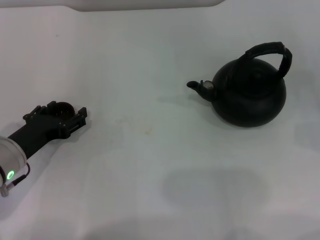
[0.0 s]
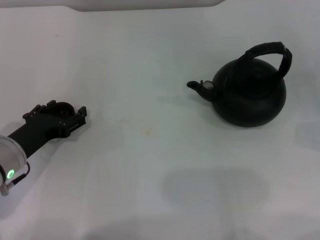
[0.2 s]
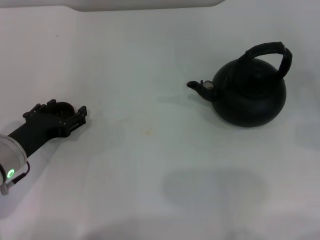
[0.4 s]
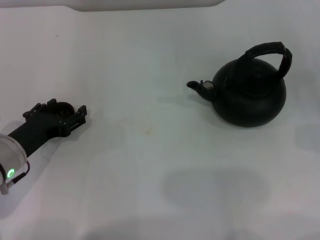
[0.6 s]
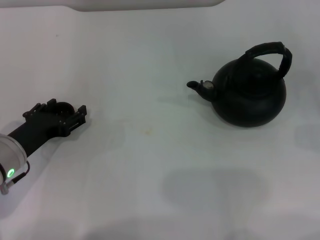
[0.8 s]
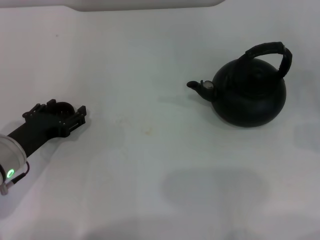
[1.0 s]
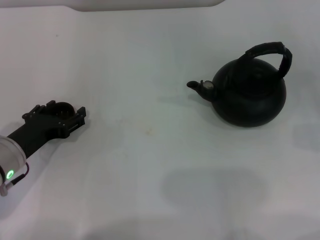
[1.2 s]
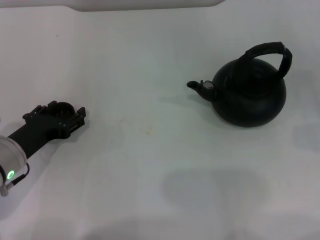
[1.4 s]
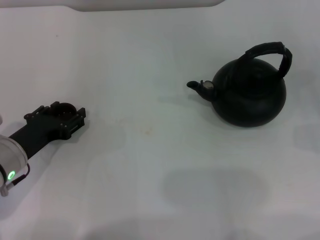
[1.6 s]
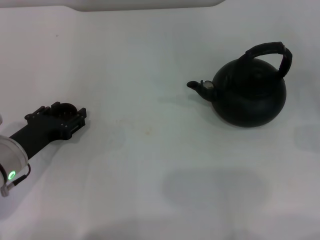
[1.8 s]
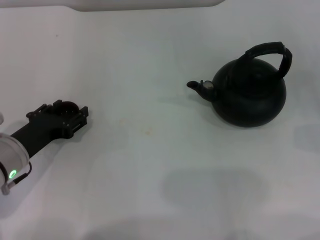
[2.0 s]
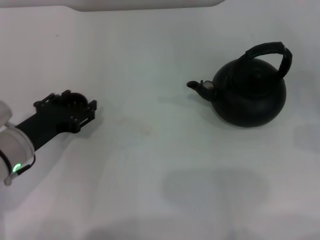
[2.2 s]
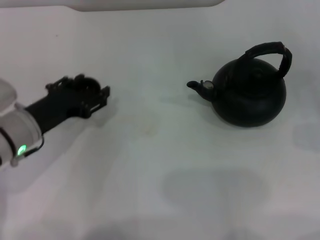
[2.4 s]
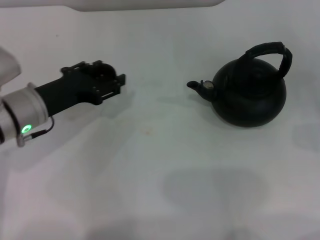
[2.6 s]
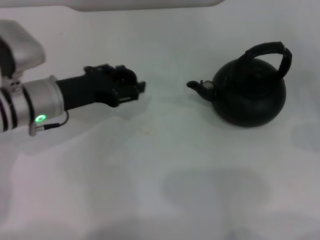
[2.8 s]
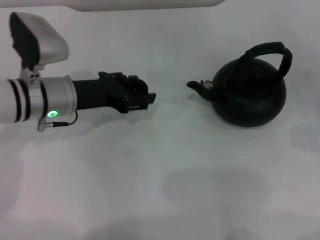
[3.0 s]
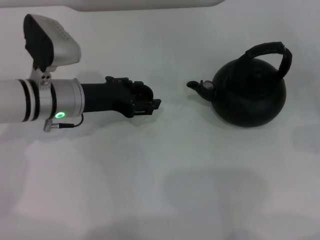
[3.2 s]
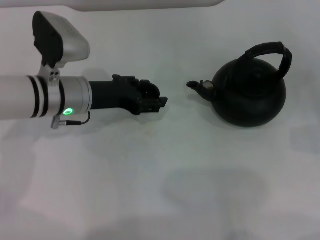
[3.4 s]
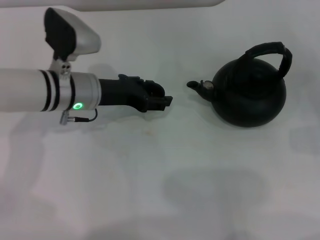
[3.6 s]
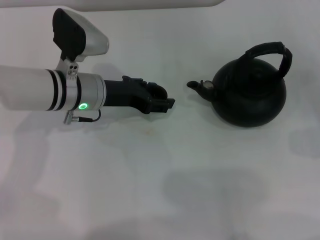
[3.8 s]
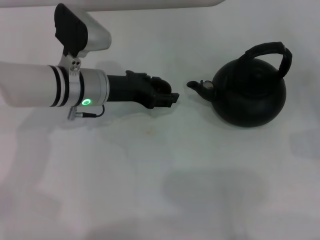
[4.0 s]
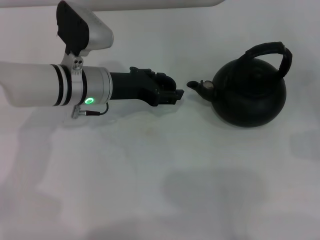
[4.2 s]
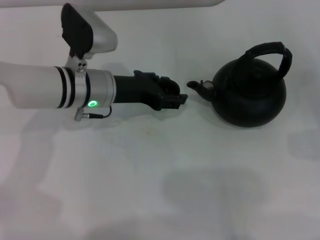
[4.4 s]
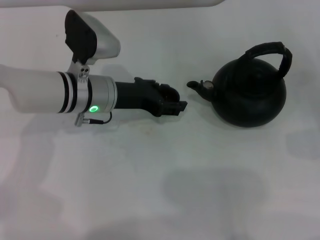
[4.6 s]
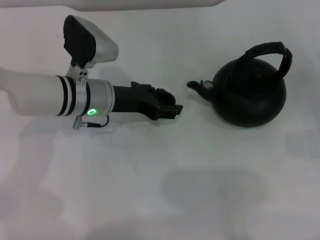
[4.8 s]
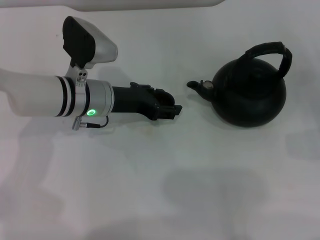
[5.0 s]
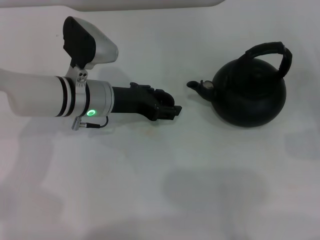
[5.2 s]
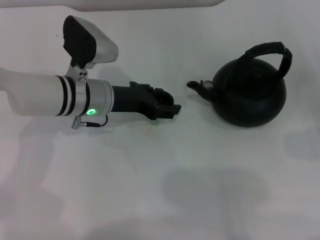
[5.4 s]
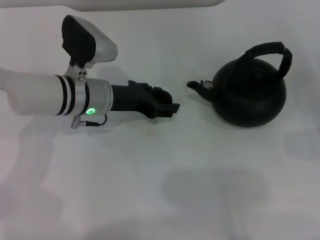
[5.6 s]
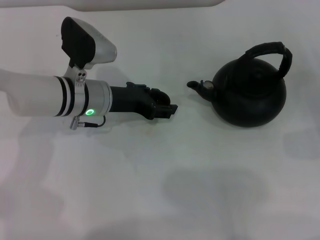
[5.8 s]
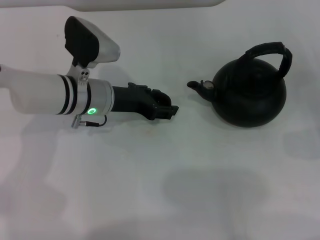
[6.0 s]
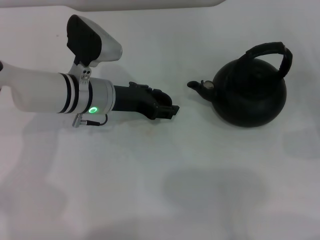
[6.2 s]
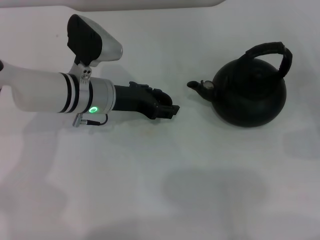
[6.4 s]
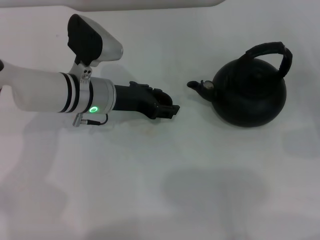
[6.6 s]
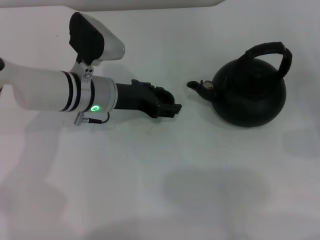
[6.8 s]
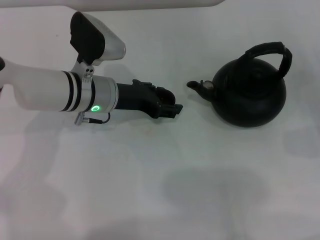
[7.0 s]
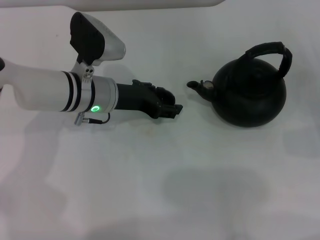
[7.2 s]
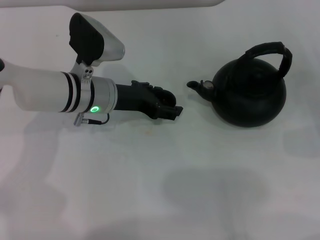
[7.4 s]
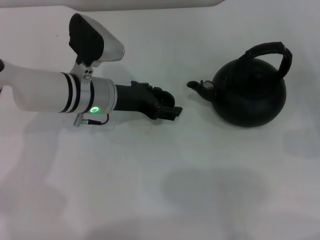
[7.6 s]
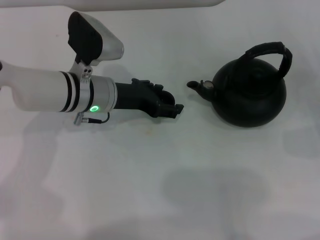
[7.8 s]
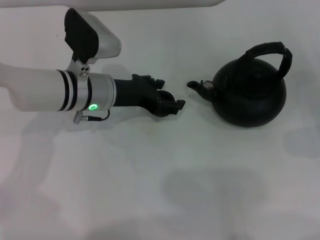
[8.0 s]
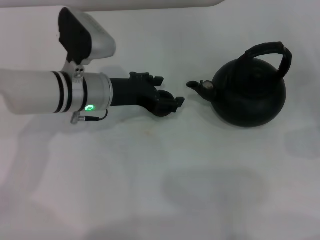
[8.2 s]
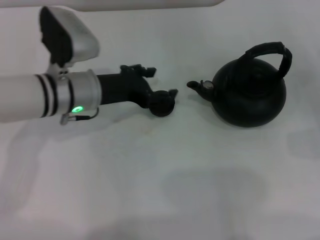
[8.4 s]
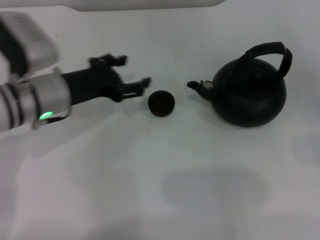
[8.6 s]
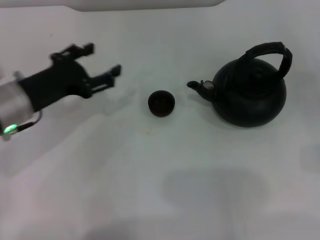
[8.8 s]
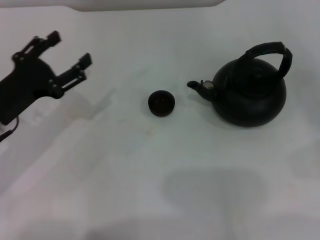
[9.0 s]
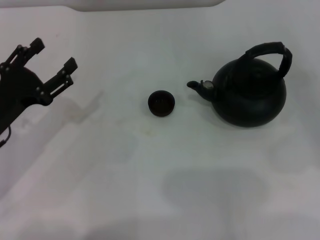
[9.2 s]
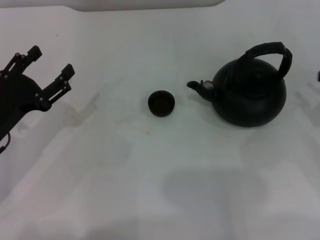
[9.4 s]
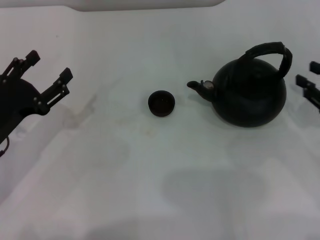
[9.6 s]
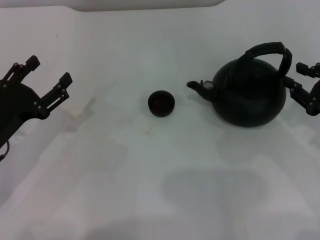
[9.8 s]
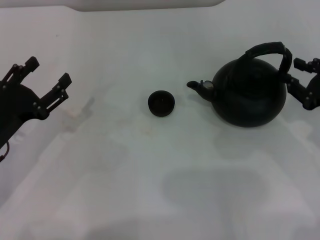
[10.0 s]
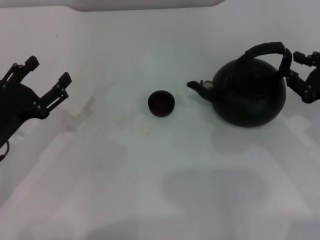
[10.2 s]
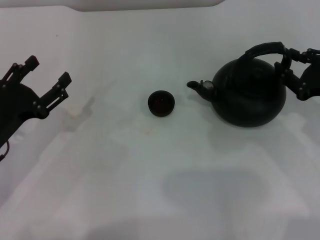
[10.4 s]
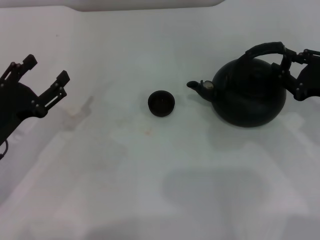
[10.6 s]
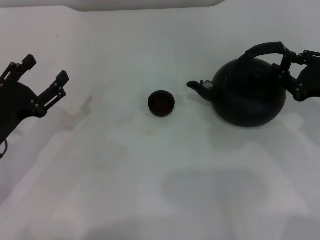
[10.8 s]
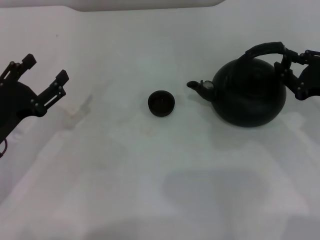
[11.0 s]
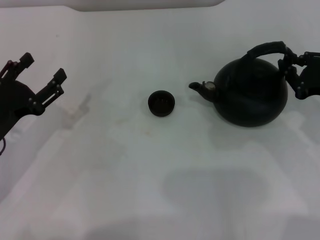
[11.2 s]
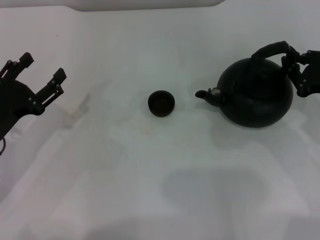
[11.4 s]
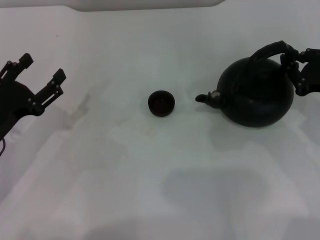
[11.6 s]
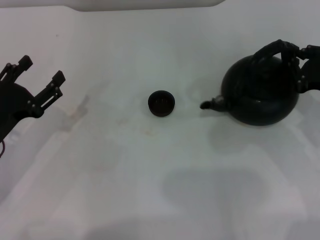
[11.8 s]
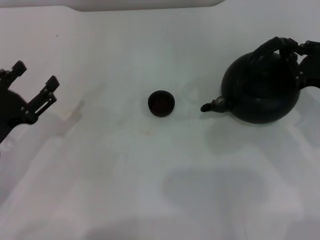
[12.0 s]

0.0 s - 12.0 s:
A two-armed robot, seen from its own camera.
Task of the whole recording: Grasp the handle of the teapot with one hand and pour tea into the teacup.
Step, 0.0 s - 2.4 s: Pick up the teacup with the left gripper.
Step, 2.6 s - 8.4 s: Place the teacup in the center of view with the left gripper.
1.6 s - 3.0 s: The left gripper goes roughly 15 cm forward, to the right and upward, and closes its fingers.
3.0 s - 4.4 s: The left gripper heads to the right, covering approximately 5 cm.
4.4 s - 6.0 s: The grippers stay close to where they were, moving slightly.
6.0 s - 7.6 s: The left gripper opens its fingers.
7.6 s - 9.0 s: The left gripper is displaced to the left and backward by roughly 15 cm. Meanwhile the right gripper moves roughly 5 cm.
9.0 s - 10.4 s: The right gripper goes roughly 15 cm to the left and forward.
10.4 s - 12.0 s: The right gripper closes its fingers.

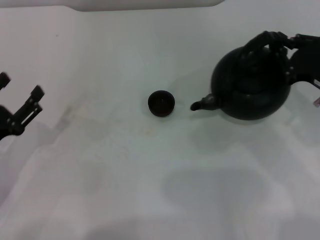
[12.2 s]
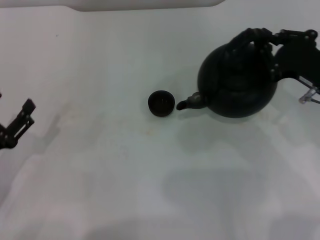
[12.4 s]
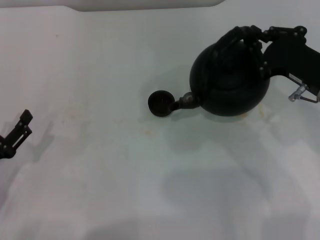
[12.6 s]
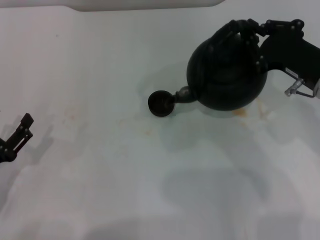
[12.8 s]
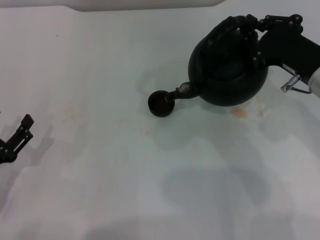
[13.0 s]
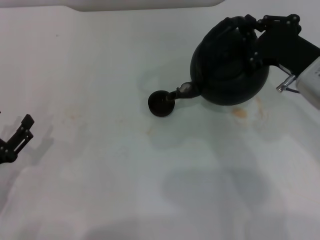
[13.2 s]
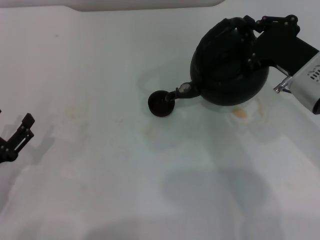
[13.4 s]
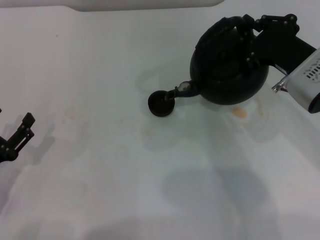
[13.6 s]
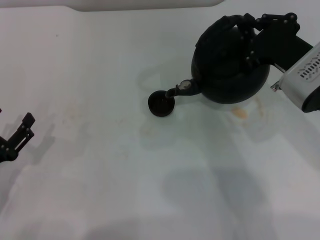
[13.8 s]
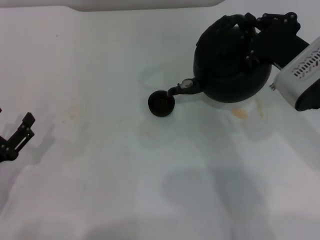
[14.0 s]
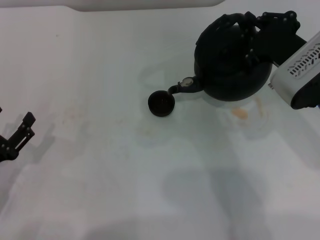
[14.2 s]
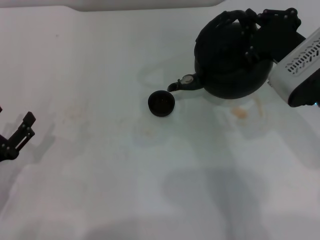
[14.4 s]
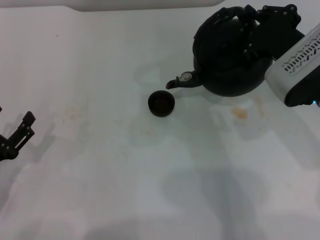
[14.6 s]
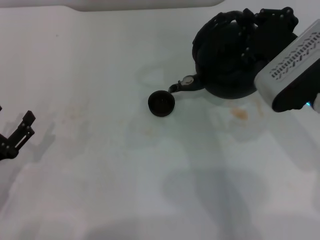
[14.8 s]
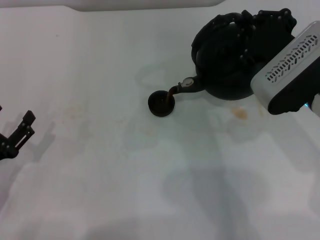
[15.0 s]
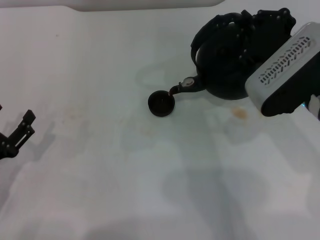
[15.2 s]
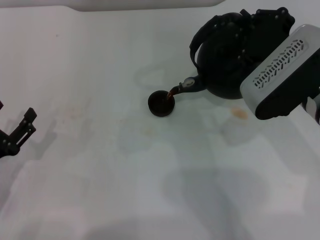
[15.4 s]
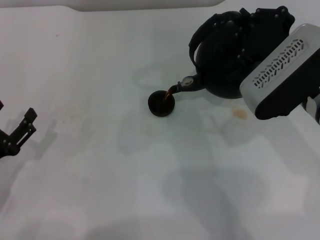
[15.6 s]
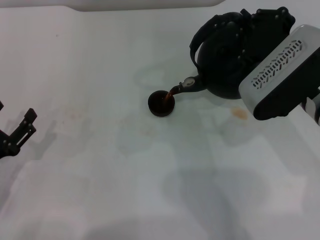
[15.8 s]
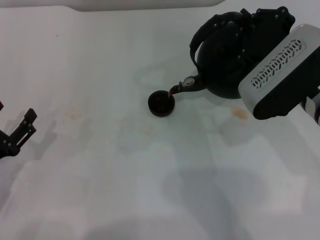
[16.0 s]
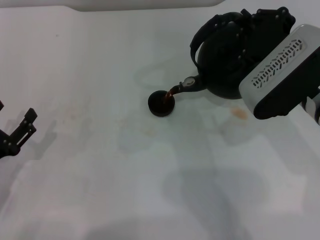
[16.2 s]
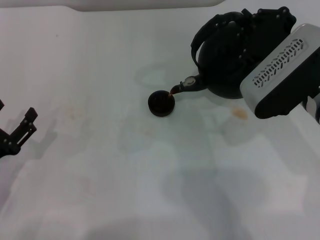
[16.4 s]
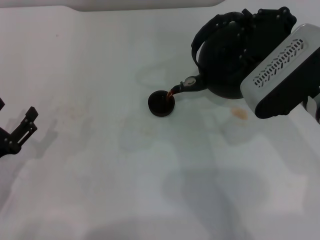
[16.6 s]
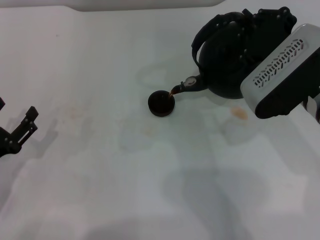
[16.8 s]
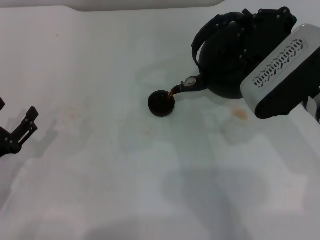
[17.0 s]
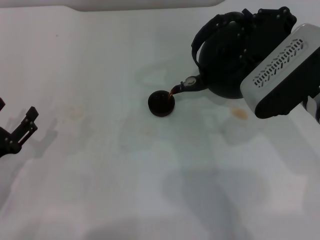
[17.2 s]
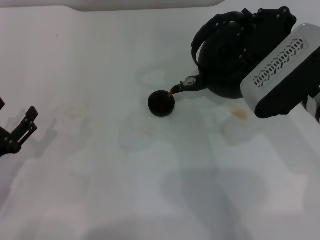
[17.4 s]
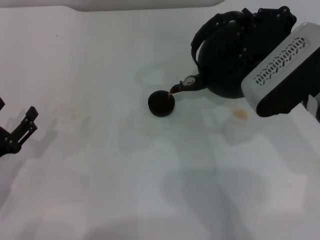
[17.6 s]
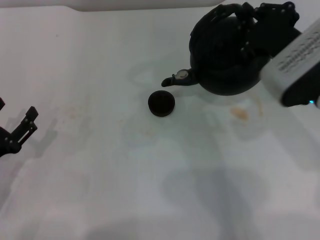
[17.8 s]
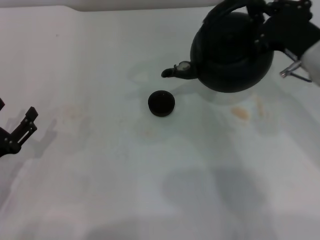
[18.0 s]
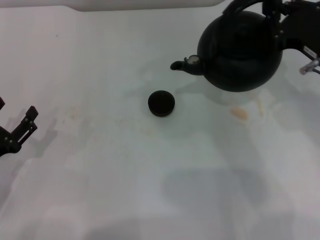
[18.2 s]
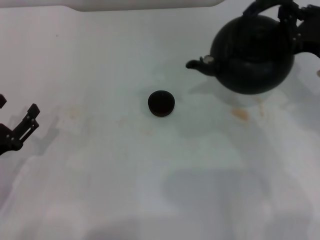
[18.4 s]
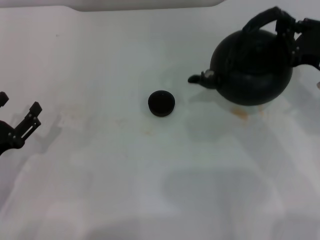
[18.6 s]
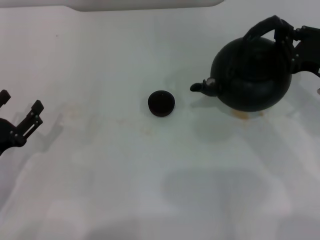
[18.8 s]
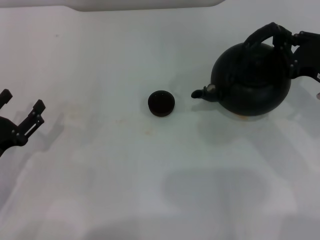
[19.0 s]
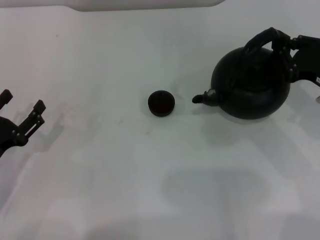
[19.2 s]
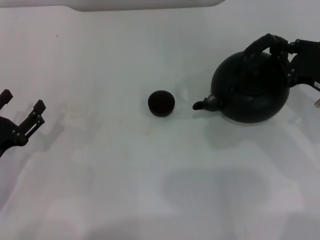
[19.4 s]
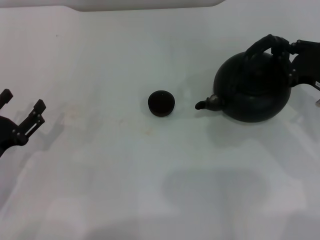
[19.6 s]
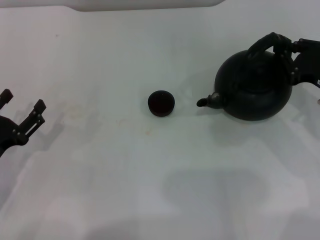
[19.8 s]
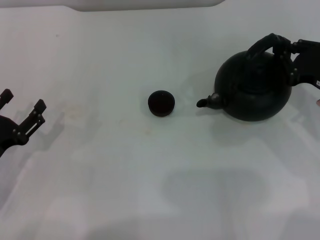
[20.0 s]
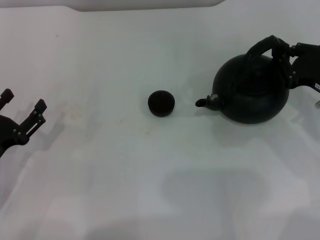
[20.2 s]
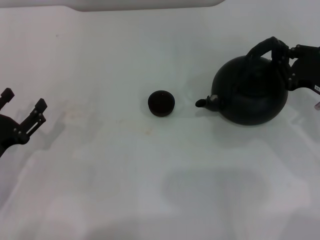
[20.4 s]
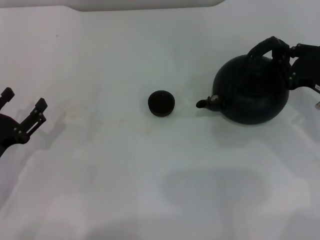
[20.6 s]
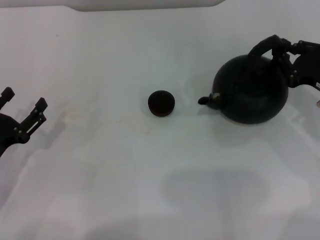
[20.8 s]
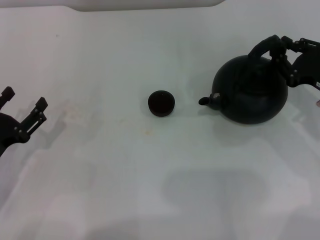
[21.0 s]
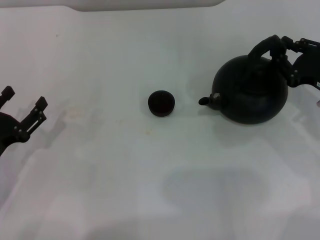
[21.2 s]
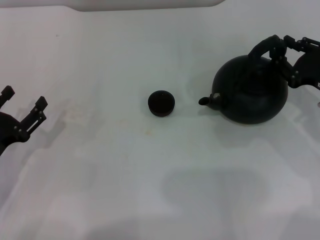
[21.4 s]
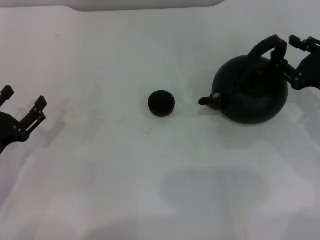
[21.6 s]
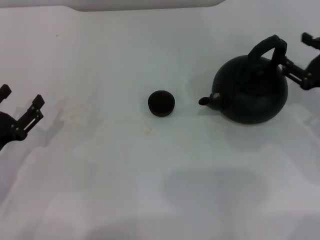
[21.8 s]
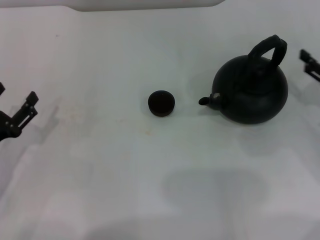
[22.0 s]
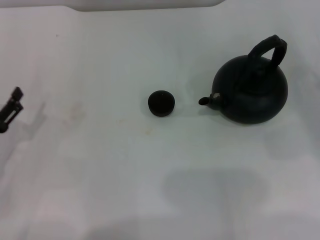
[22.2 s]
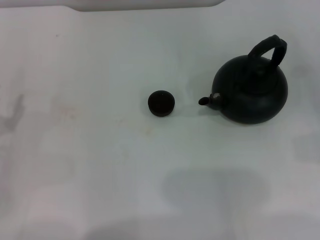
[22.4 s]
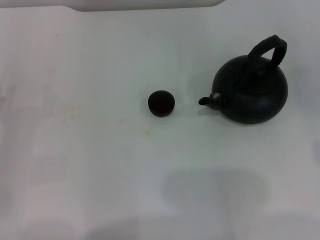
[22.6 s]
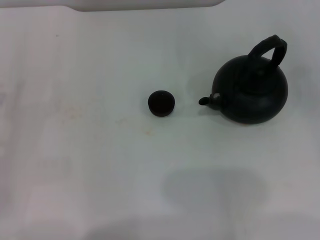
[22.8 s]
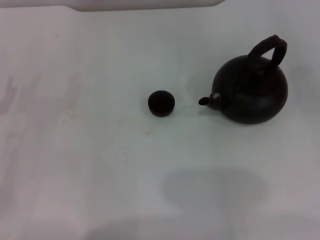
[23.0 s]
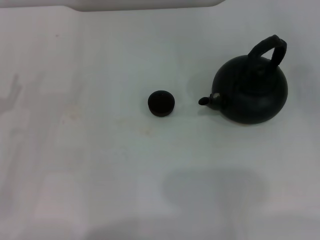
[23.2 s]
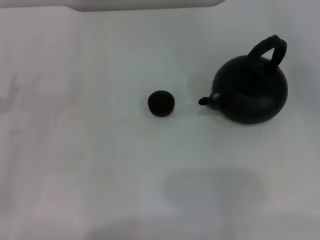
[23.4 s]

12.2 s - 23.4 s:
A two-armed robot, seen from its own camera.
Task of the whole recording: Grasp the handle of the teapot with one hand and pour tea into the teacup.
Step, 12.6 s - 18.0 s: Pour tea into the teacup with the right gripper.
Step, 18.2 s - 22.0 s: Put down the teapot with the right gripper.
12.2 s - 13.8 s: The right gripper heads to the left, covering roughly 5 cm.
13.8 s - 15.4 s: The grippers stay close to where they were, moving slightly.
15.4 s - 17.0 s: Both grippers stay put.
17.0 s - 18.6 s: The right gripper goes about 10 cm to the right.
18.6 s - 20.2 s: The right gripper moves about 5 cm.
20.2 s - 21.8 s: The right gripper opens.
21.8 s - 23.4 s: The right gripper shifts approximately 15 cm to the right and backward. The left gripper changes place by about 5 cm.
